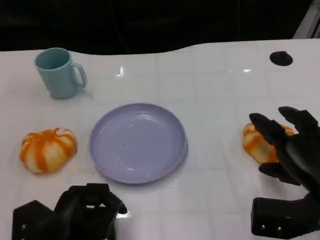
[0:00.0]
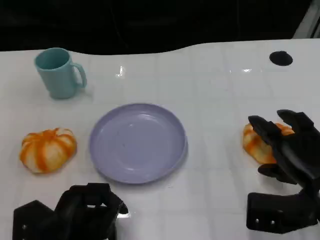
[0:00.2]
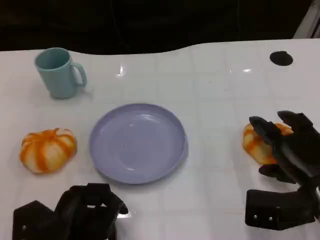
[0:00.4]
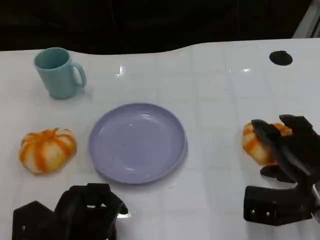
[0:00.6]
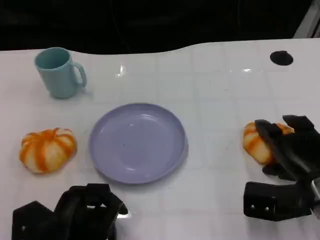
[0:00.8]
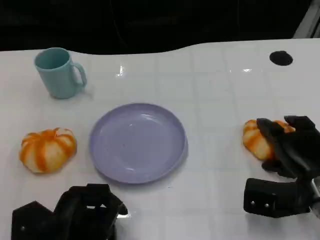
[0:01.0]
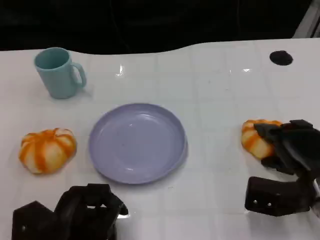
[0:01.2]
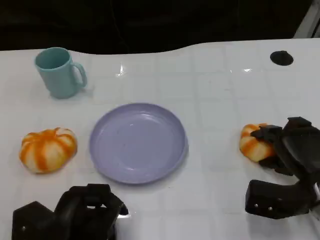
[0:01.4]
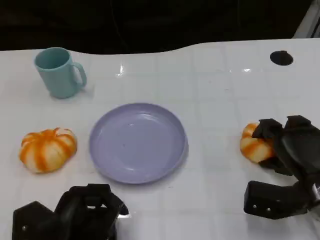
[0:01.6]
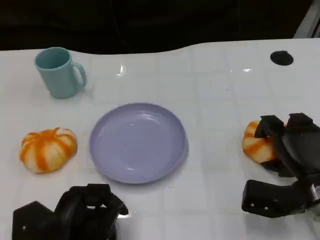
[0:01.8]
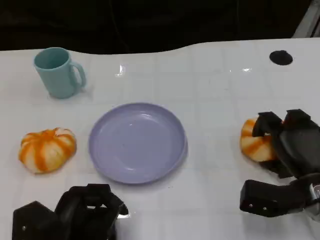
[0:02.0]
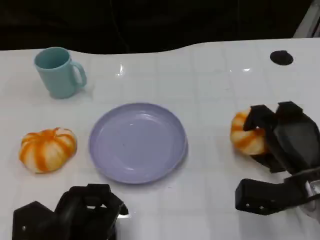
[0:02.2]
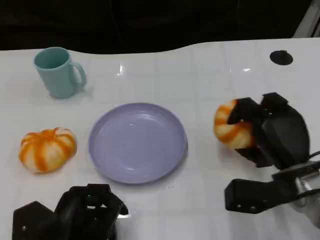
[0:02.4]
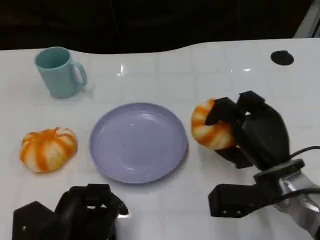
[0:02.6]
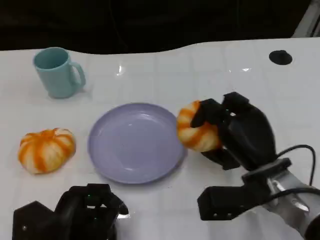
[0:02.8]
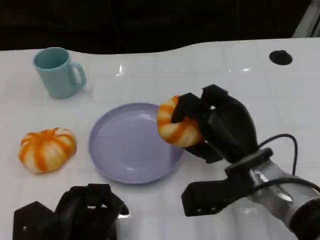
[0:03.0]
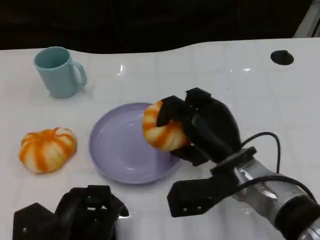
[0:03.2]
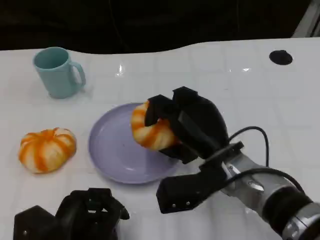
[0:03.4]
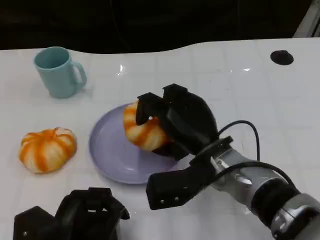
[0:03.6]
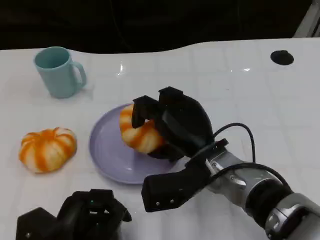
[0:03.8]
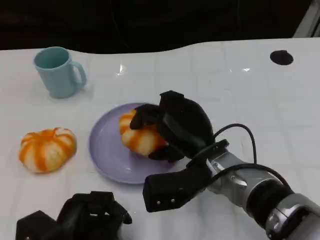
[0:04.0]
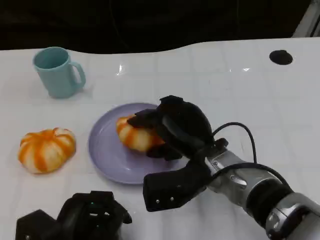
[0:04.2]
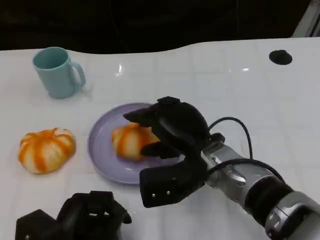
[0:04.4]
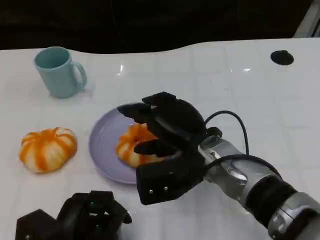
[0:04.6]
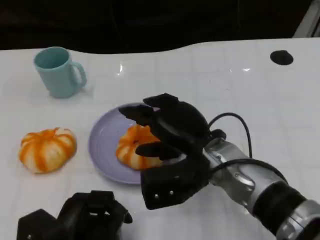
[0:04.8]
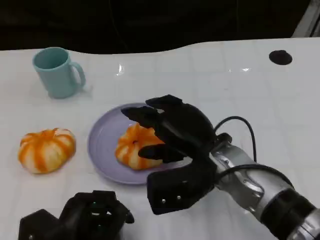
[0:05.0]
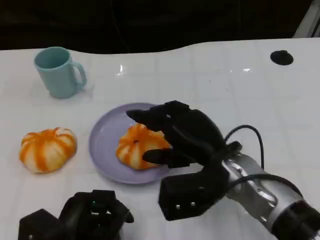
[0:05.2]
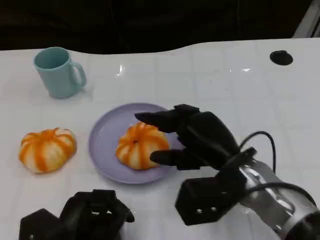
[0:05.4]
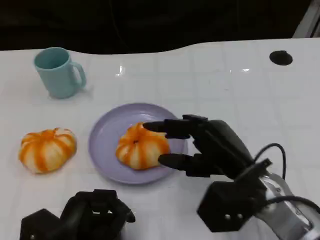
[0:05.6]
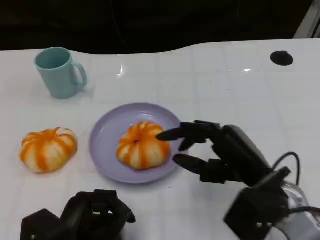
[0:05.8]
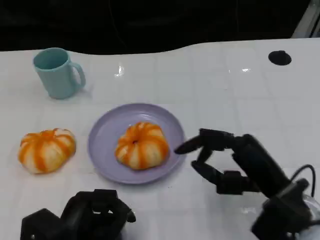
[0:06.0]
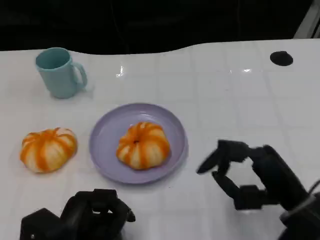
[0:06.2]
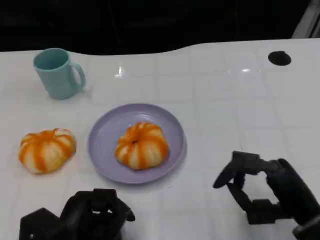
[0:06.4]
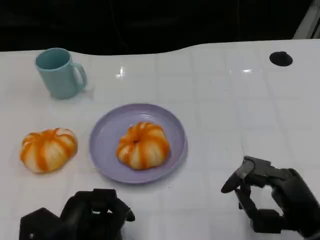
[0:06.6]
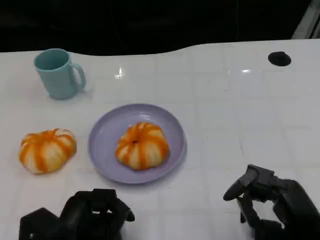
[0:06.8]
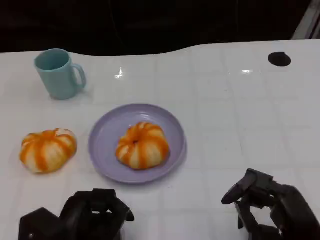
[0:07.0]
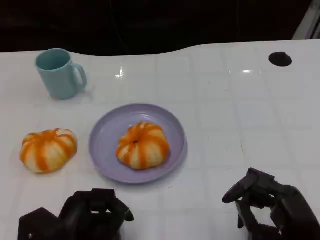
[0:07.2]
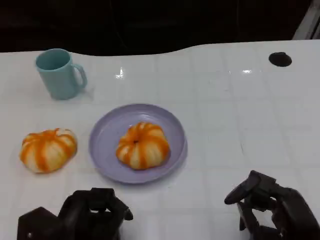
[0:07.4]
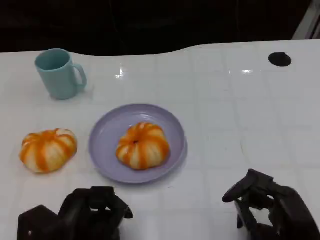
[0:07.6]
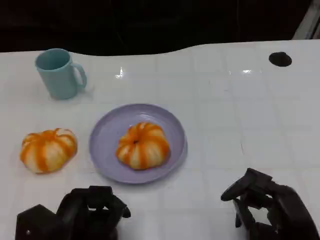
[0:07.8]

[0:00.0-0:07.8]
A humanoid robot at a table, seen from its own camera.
Task of the whole recording: Grasp the bread from the table and place it into the plate.
0:00.0 to 0:01.6: The right hand moves some 5 cm.
0:01.6 to 0:03.2: The right hand shifts approximately 15 cm to the left.
0:04.6 to 0:06.2: The right hand goes approximately 15 cm to the right and backward.
0:06.2 to 0:07.8: The right hand shifts by about 5 cm.

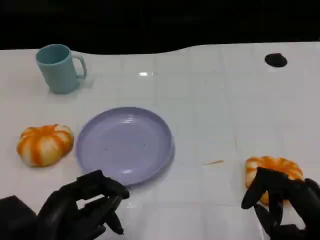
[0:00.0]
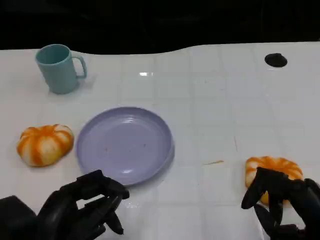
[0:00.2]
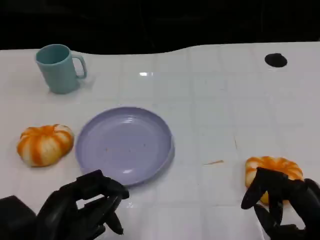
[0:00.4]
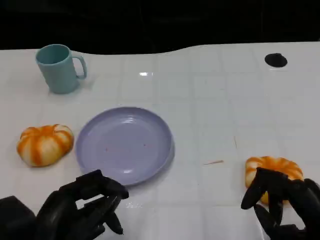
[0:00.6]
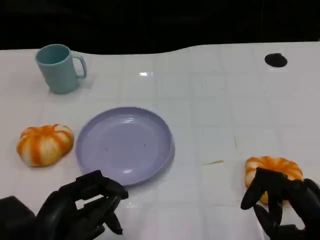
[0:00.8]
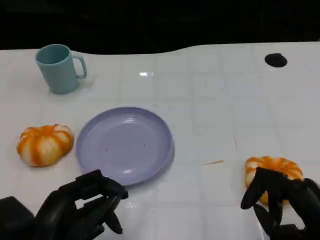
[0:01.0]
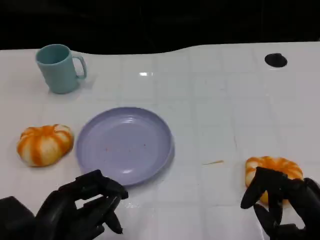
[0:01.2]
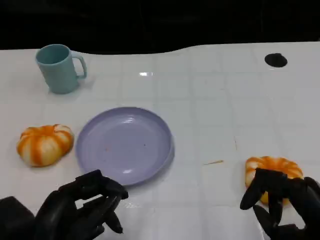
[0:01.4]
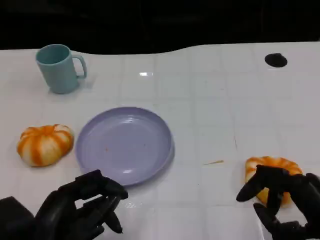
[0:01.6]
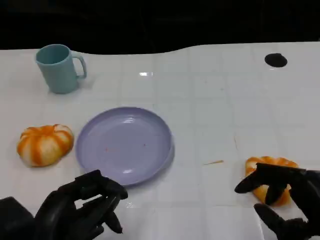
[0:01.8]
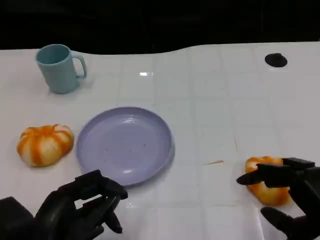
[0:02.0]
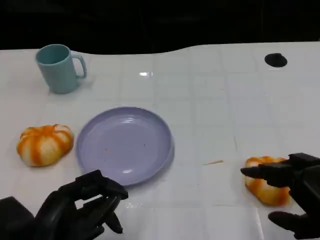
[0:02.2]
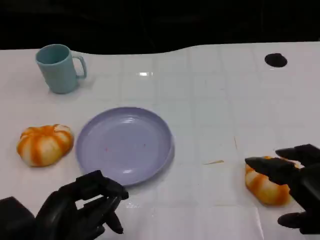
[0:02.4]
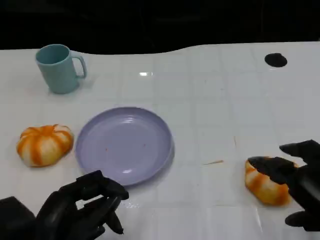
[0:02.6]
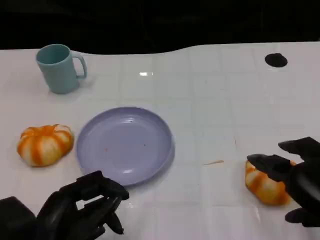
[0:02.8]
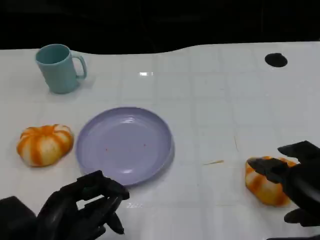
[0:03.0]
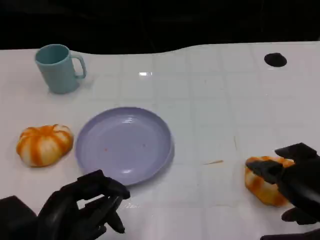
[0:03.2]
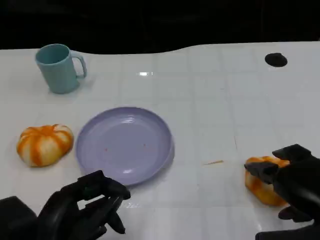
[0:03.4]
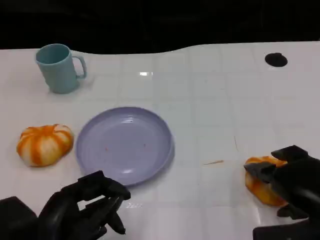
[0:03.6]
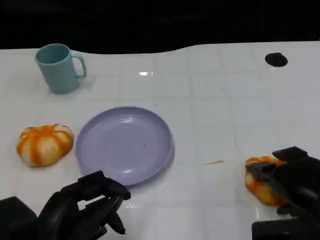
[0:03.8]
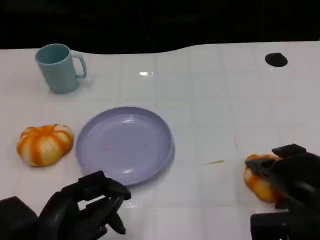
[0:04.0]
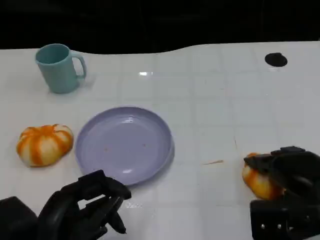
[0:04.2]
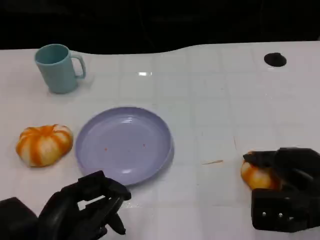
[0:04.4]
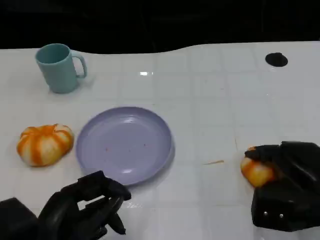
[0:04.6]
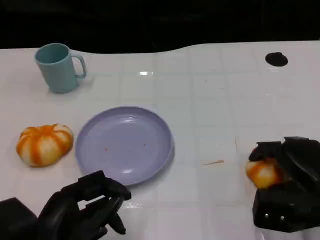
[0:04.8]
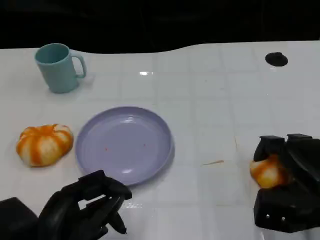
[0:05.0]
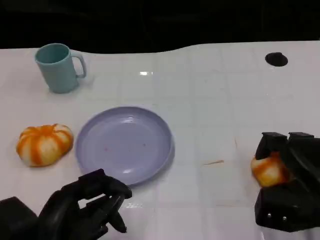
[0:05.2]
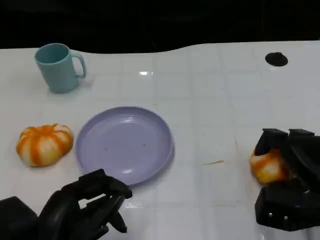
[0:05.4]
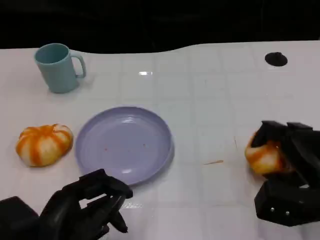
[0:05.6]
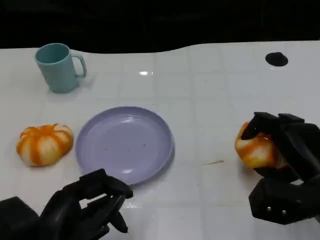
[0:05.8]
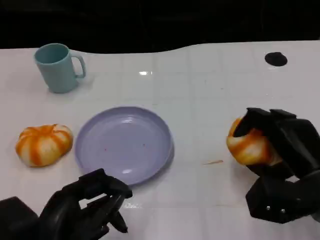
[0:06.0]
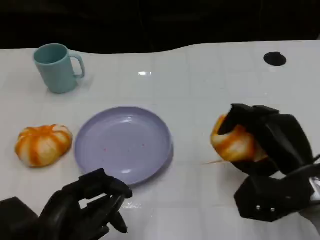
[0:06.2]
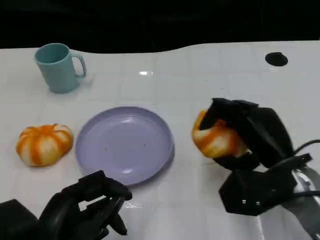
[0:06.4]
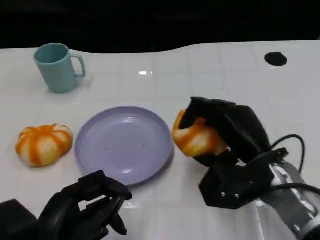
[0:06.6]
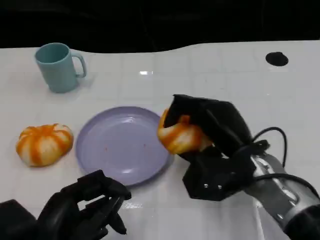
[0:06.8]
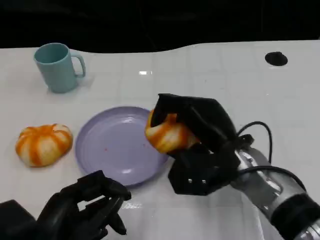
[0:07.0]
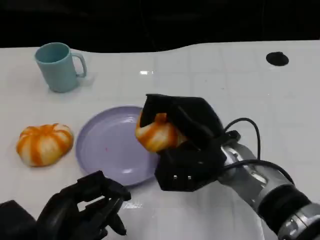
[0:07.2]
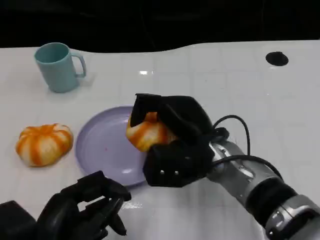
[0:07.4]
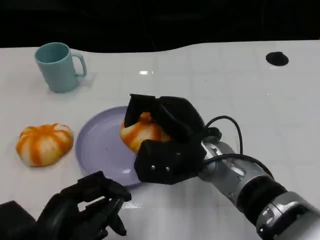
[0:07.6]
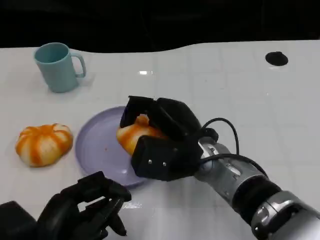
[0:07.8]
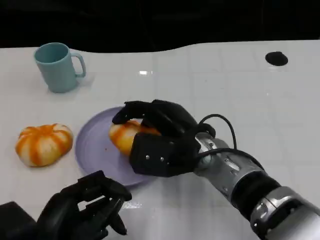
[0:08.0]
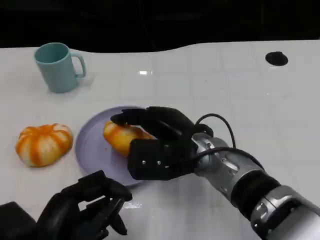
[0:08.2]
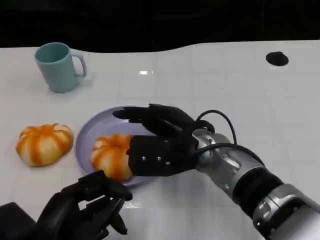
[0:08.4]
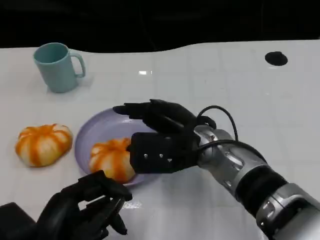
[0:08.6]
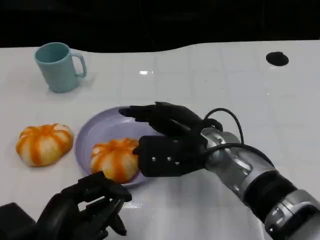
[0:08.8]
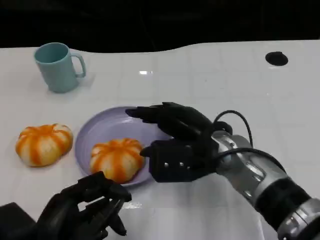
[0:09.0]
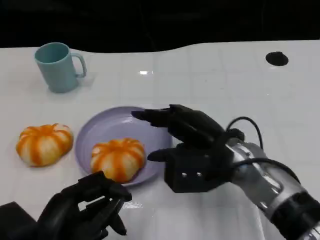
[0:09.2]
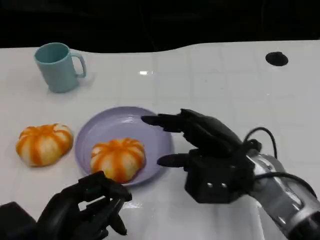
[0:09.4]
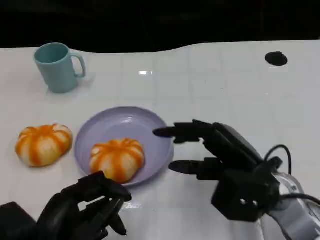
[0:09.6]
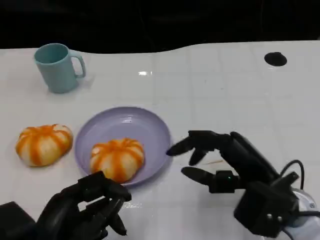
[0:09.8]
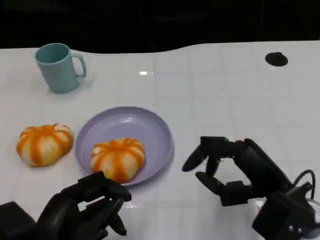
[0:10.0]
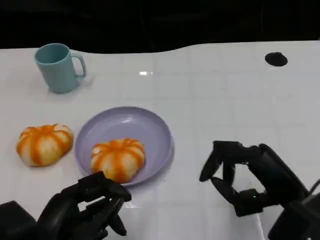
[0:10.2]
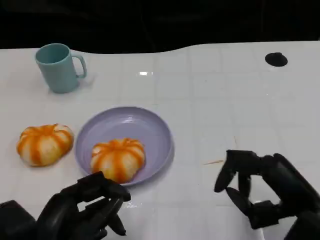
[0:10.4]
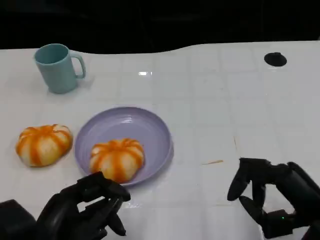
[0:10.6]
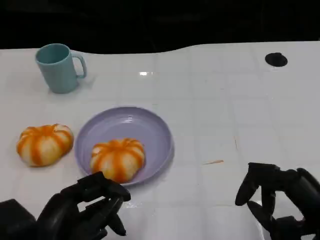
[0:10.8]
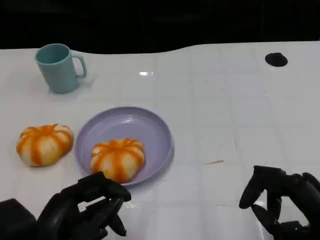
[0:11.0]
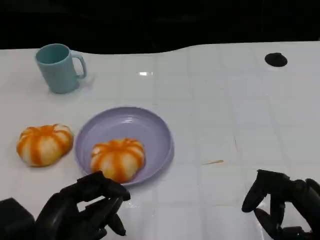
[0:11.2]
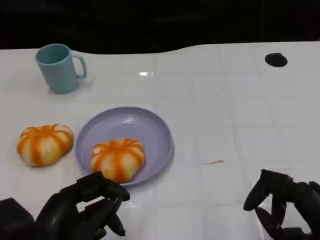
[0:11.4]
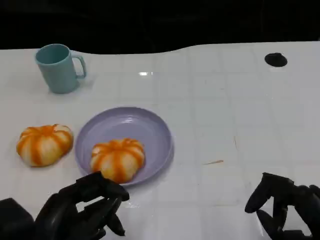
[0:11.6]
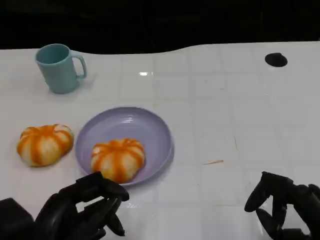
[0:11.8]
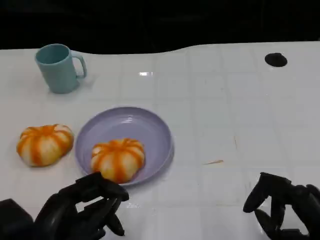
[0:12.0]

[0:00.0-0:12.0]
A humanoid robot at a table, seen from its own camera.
Task of the whole recording: Grasp the bread from the table and place it into the plate.
0:00.0 to 0:01.6: There are only small adjustments of the hands.
0:03.0 to 0:04.4: The right hand is displaced forward by about 5 cm.
0:06.0 to 0:07.6: The right hand heads to the left, covering about 15 cm.
0:07.6 to 0:09.0: The hands make only small movements.
0:09.0 to 0:10.4: The right hand goes approximately 20 cm to the right and backward.
0:10.4 to 0:12.0: There are only small adjustments of the hands.

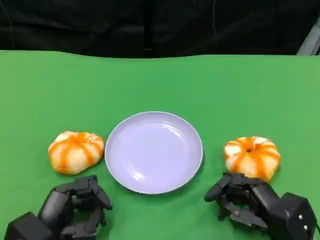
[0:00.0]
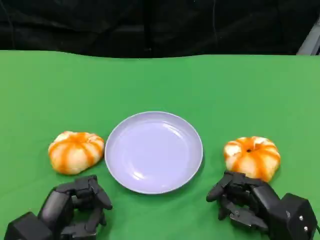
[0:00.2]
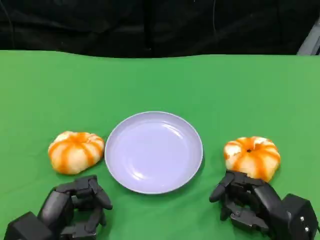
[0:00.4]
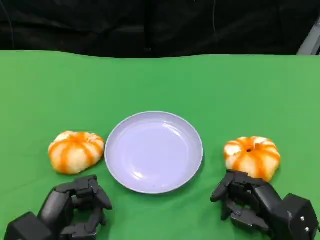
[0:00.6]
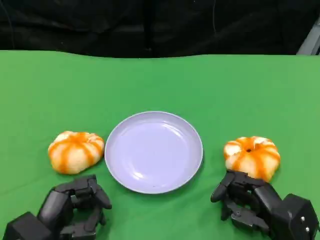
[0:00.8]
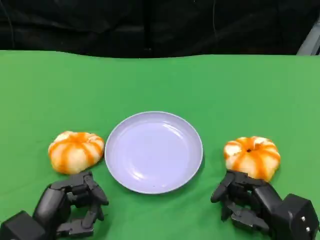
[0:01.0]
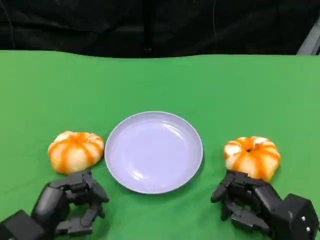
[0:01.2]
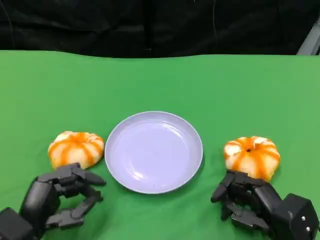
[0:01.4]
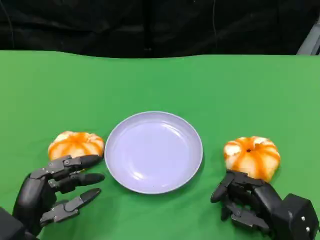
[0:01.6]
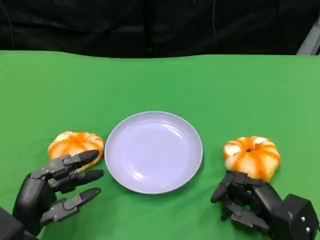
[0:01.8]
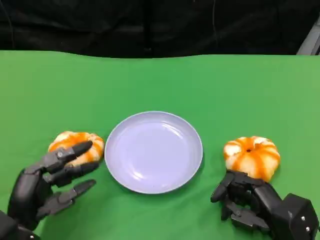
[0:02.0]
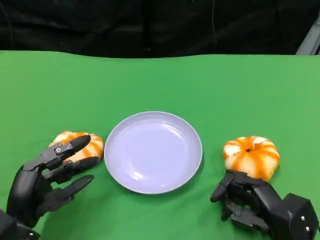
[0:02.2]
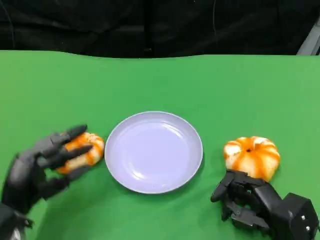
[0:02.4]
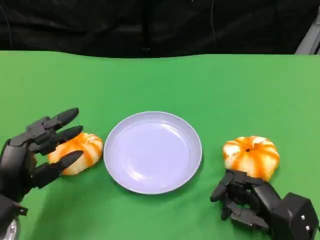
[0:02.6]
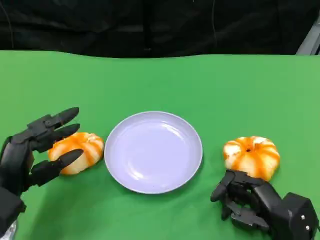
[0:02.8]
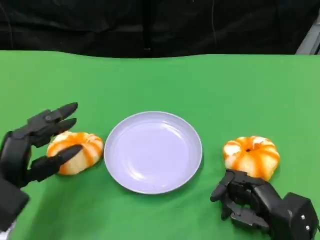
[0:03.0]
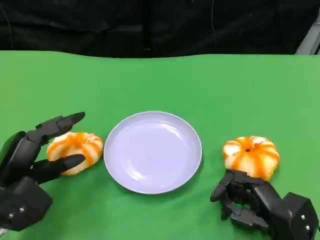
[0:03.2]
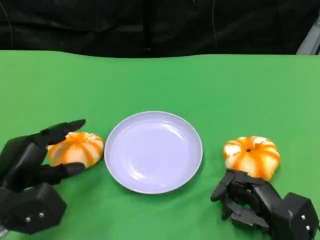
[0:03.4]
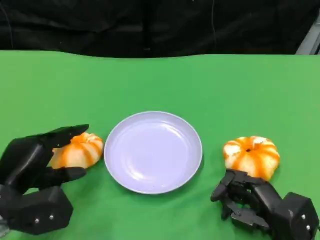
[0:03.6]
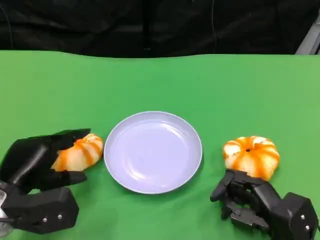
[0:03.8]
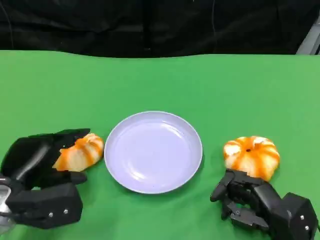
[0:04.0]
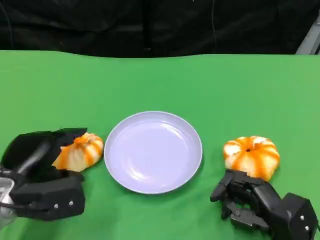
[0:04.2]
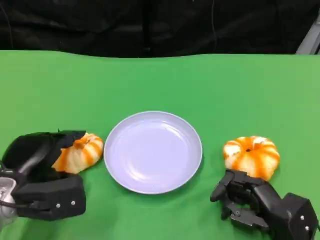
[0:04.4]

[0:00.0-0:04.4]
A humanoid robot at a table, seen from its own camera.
Task of the whole recording: Grasp the bread from the table and place it into the plate.
0:00.0 to 0:01.4: The hands move only a little.
0:01.4 to 0:03.0: The left hand shifts by roughly 5 cm.
